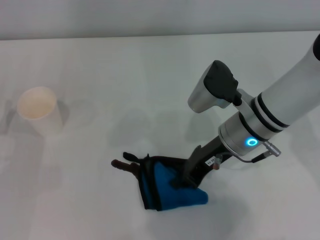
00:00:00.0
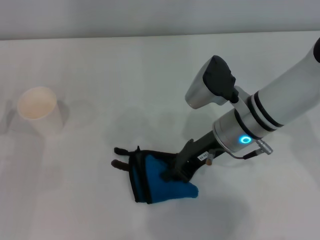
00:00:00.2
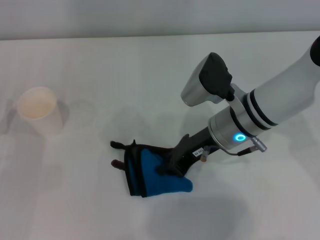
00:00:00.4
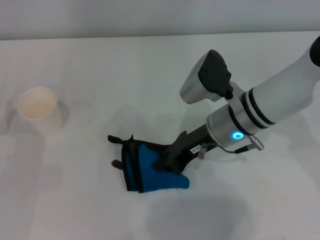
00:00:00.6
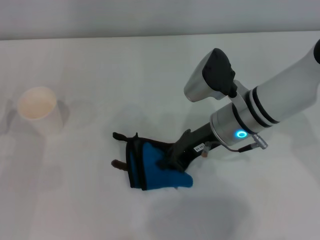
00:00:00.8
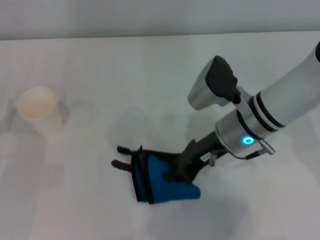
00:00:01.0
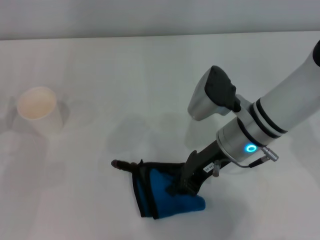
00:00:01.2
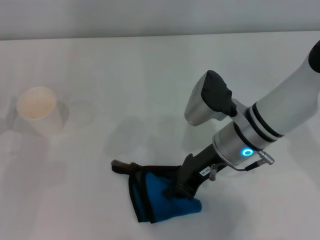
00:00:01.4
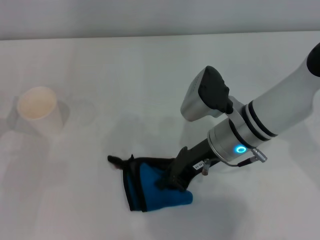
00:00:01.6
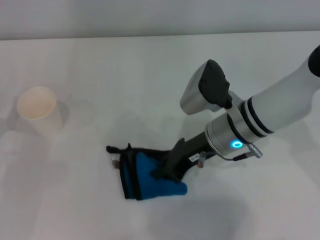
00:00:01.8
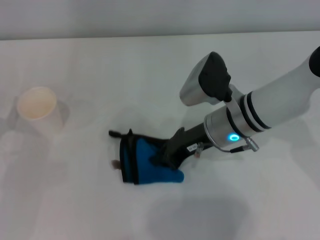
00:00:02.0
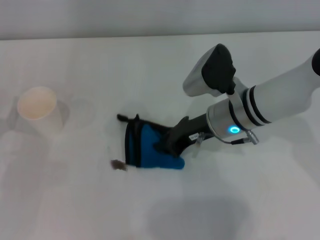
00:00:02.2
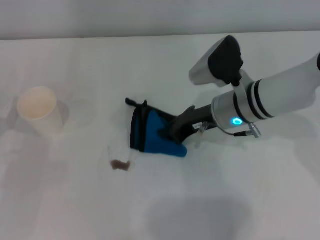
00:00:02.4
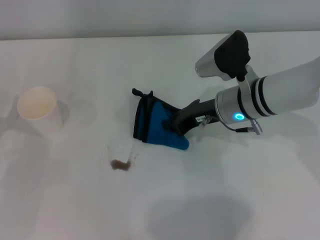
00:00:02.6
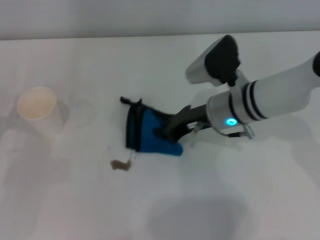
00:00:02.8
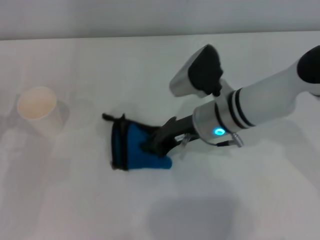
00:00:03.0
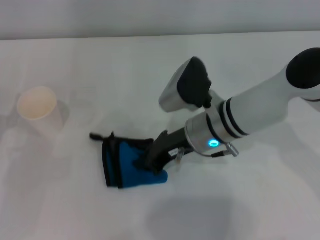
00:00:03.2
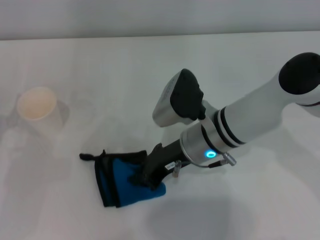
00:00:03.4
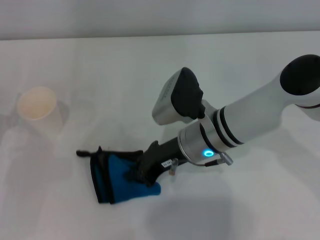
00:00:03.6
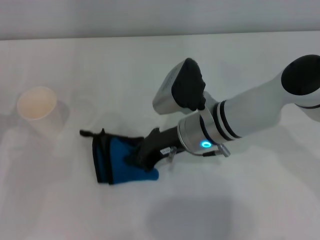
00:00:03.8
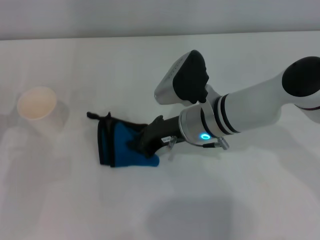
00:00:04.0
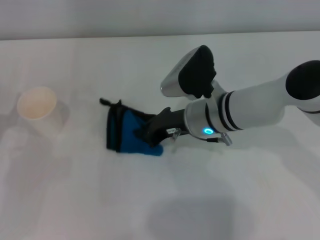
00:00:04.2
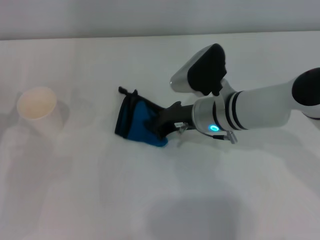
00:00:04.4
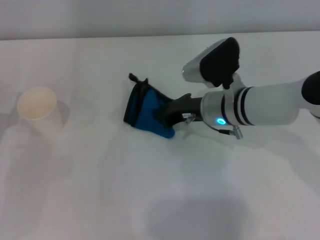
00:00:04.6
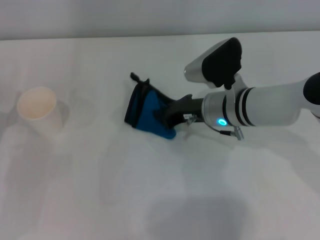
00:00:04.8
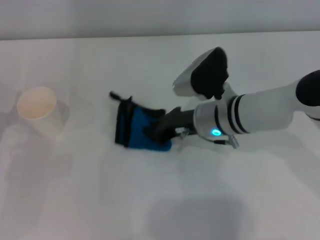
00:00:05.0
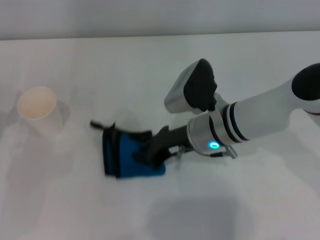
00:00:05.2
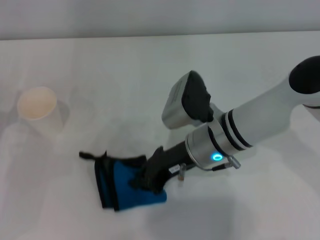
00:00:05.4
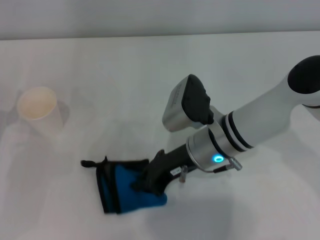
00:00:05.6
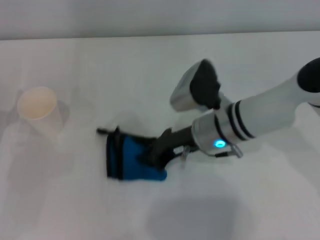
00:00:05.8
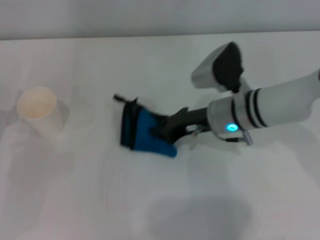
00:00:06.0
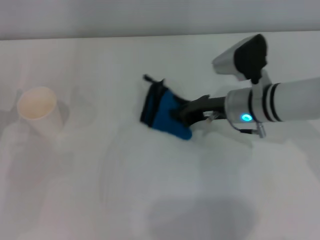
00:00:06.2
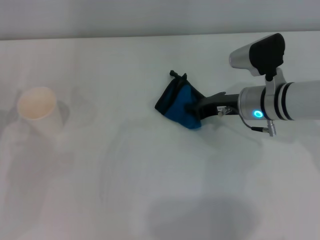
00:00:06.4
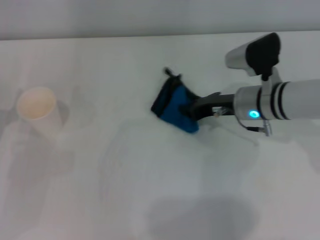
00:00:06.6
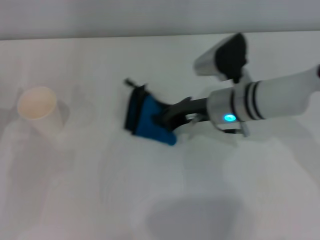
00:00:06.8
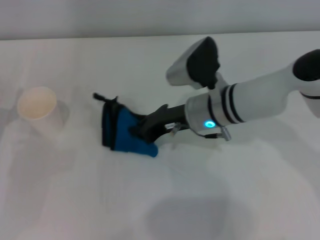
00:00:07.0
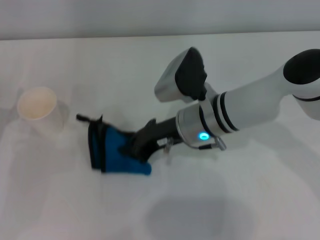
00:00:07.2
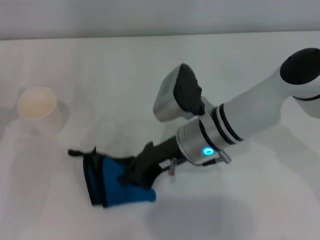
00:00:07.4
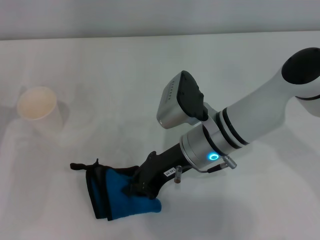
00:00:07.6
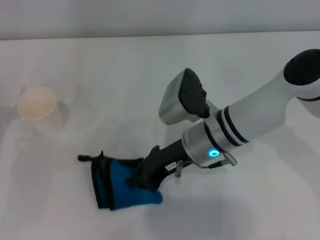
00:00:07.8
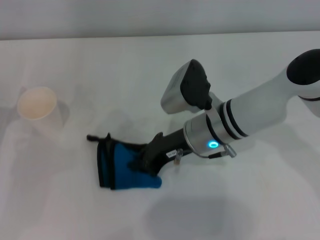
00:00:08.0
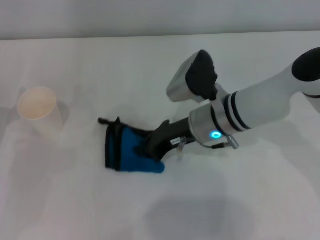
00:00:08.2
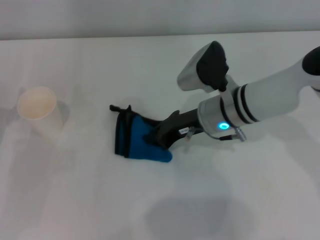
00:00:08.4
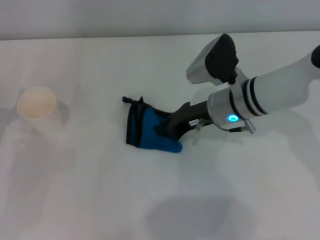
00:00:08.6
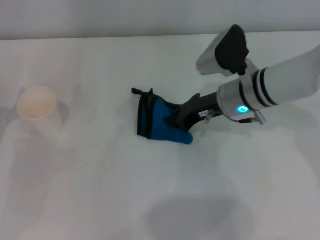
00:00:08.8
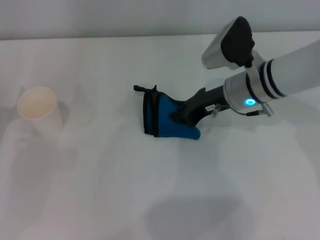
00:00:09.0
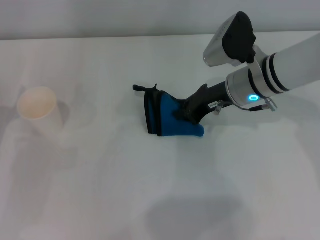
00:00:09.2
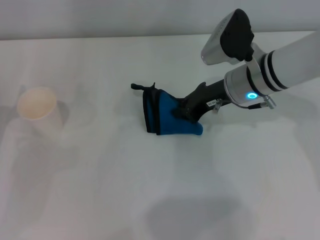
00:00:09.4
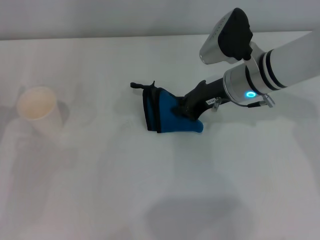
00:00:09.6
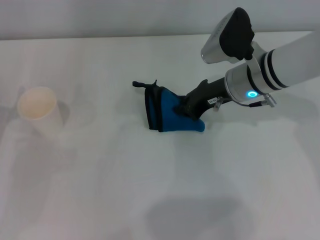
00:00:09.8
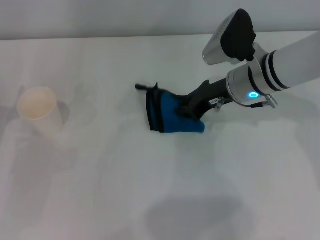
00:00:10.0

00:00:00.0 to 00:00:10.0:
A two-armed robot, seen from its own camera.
Step, 00:00:00.0 to 00:00:09.2: Wipe the stains off the table with the right gripper.
Step, 00:00:09.4 to 00:00:10.0: Place the rag on the table with the right gripper.
00:00:00.0 to 00:00:01.4: The grippers move only a little.
00:00:02.8 to 00:00:04.2: There are only small adjustments of the grippers.
00:00:05.8 to 00:00:07.2: The right gripper travels to the right and back again, some 10 cm each way.
00:00:07.2 to 00:00:08.6: The right gripper is displaced to the right by about 5 cm.
00:00:08.6 to 00:00:10.0: The grippers move only a little.

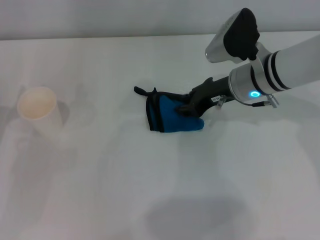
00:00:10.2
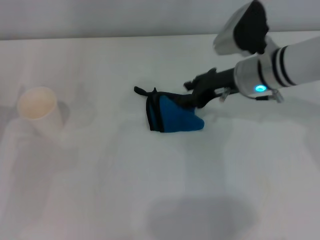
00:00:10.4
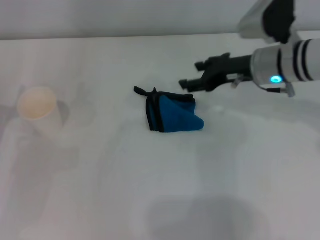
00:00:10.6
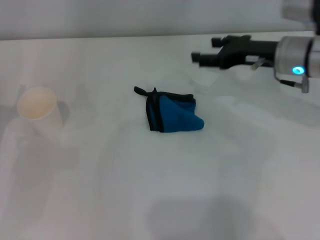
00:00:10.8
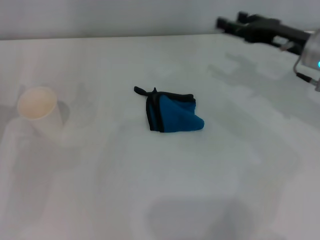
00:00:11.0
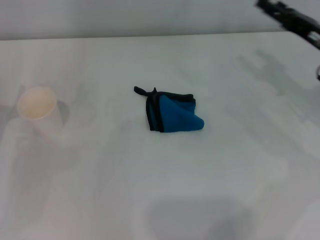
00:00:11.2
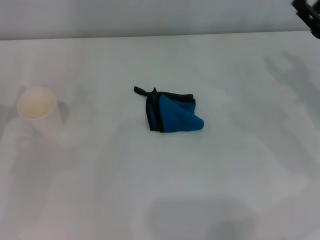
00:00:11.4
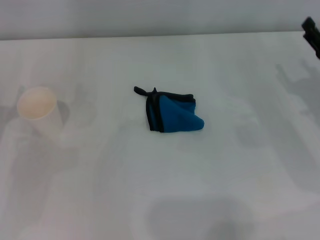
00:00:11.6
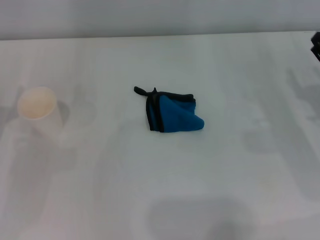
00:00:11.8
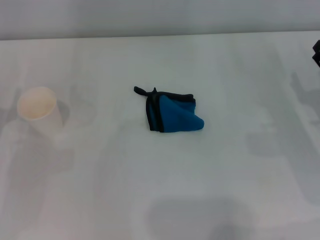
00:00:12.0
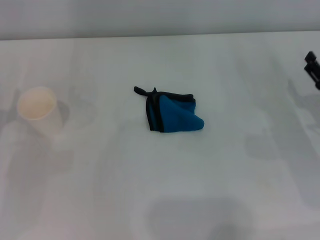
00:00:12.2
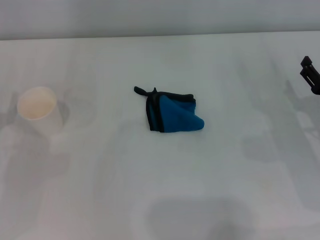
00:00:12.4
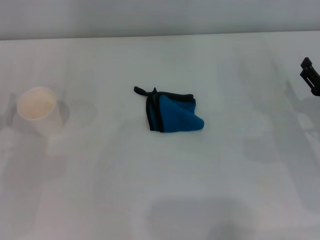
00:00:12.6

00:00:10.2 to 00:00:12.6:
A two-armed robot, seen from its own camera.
00:00:10.2 to 00:00:11.4: The right gripper travels to the right and backward by some 15 cm, and opens.
00:00:11.4 to 00:00:12.6: The right gripper heads downward and backward, covering approximately 10 cm.
